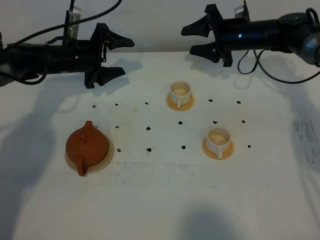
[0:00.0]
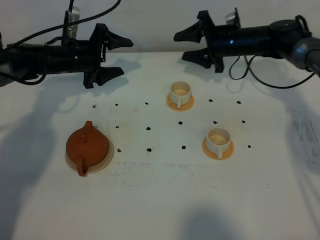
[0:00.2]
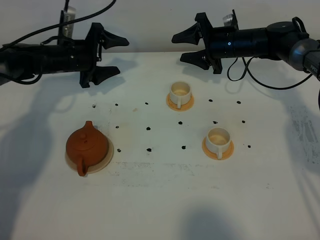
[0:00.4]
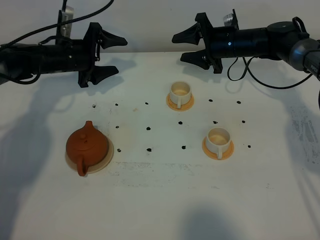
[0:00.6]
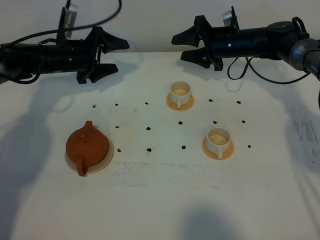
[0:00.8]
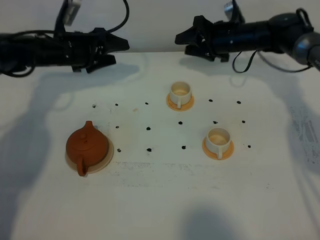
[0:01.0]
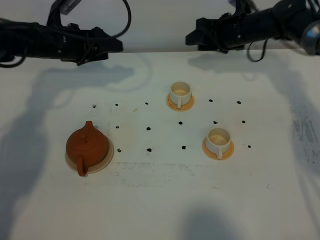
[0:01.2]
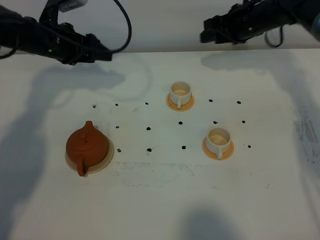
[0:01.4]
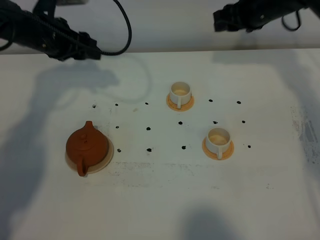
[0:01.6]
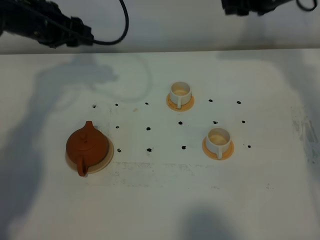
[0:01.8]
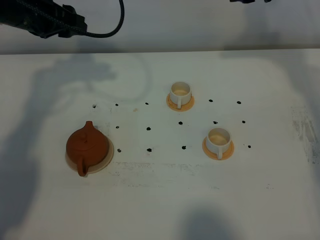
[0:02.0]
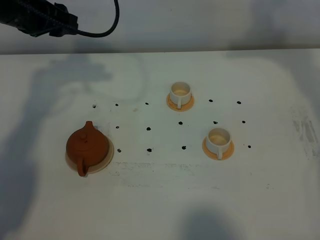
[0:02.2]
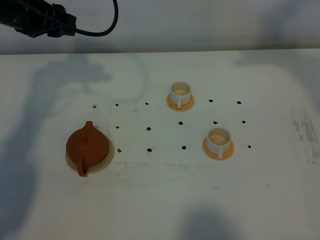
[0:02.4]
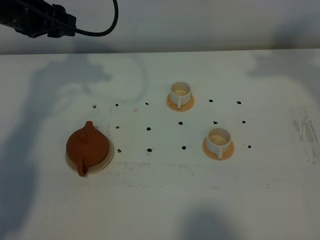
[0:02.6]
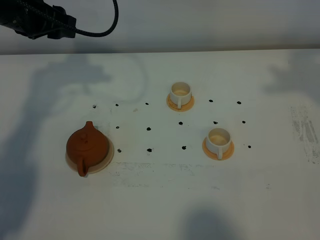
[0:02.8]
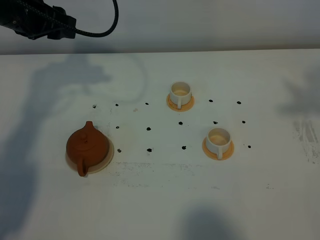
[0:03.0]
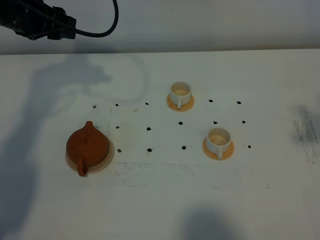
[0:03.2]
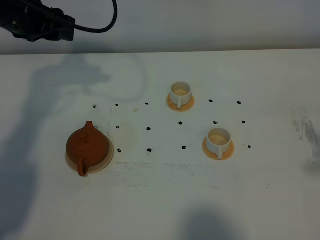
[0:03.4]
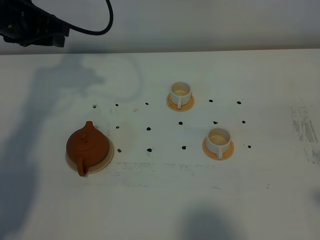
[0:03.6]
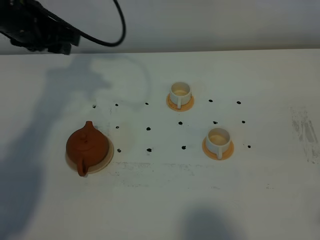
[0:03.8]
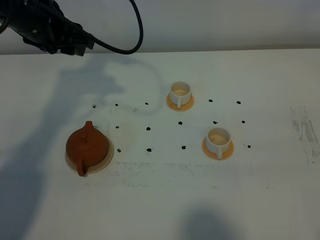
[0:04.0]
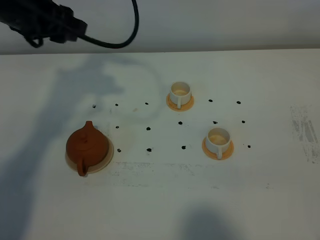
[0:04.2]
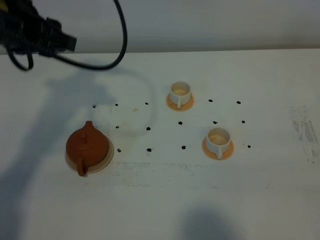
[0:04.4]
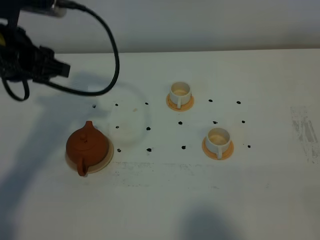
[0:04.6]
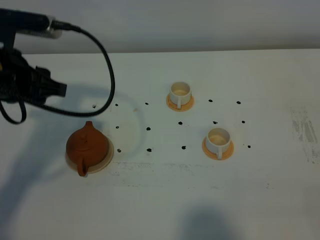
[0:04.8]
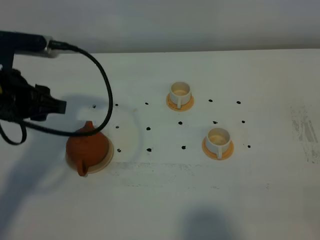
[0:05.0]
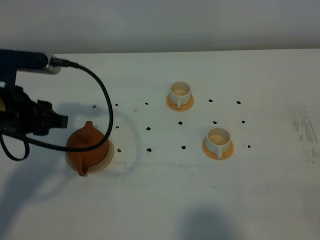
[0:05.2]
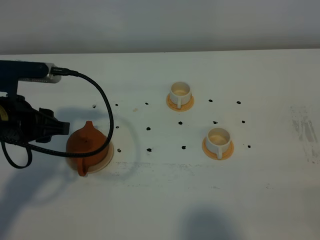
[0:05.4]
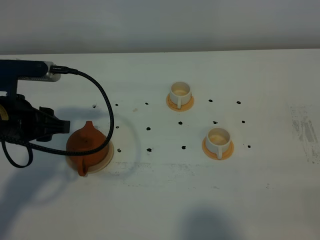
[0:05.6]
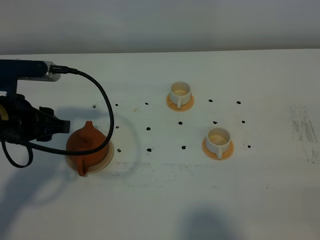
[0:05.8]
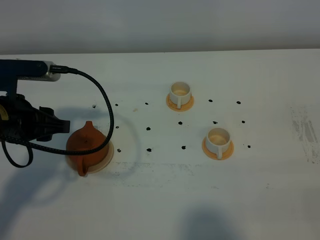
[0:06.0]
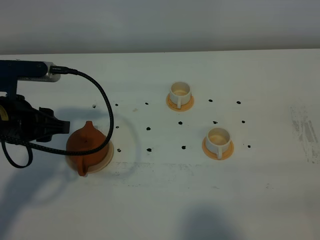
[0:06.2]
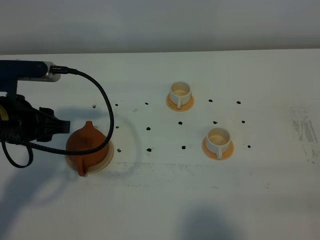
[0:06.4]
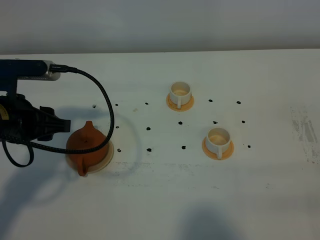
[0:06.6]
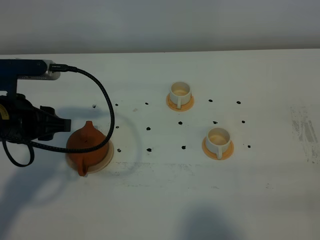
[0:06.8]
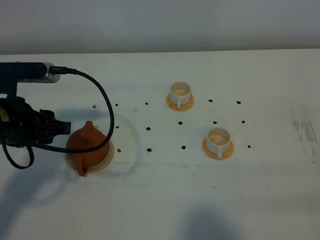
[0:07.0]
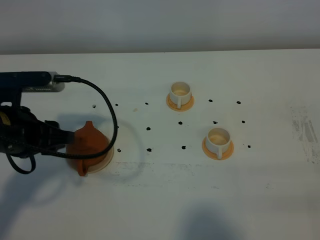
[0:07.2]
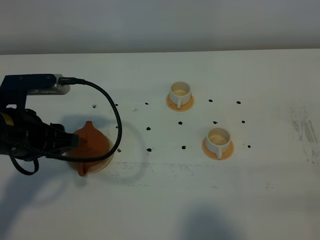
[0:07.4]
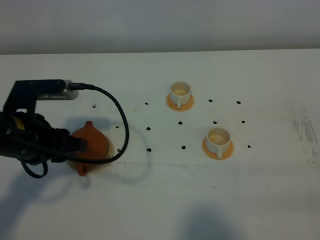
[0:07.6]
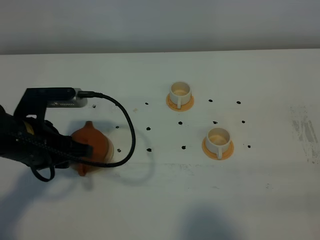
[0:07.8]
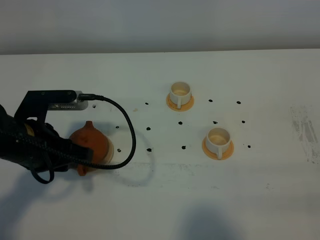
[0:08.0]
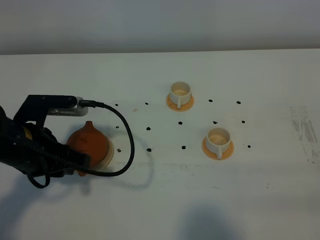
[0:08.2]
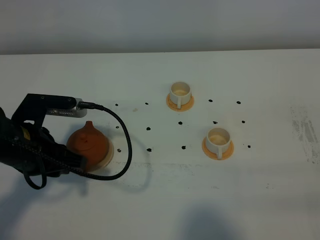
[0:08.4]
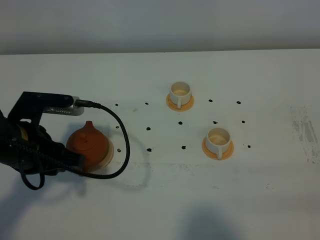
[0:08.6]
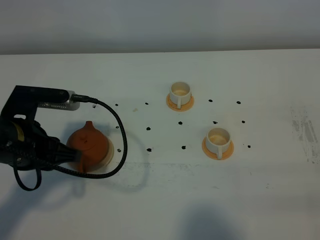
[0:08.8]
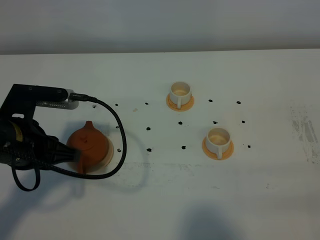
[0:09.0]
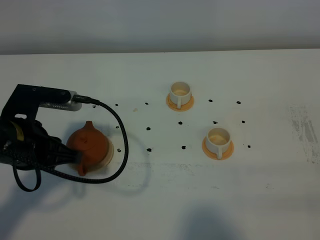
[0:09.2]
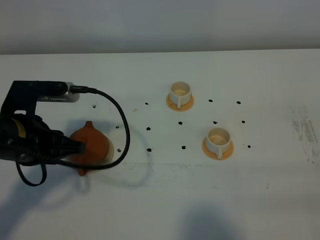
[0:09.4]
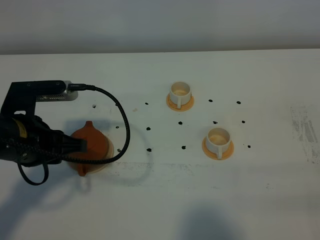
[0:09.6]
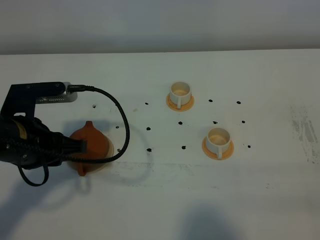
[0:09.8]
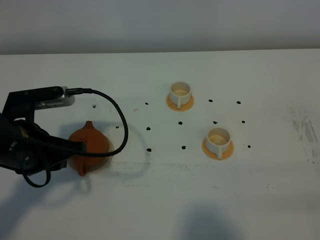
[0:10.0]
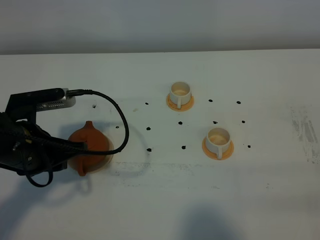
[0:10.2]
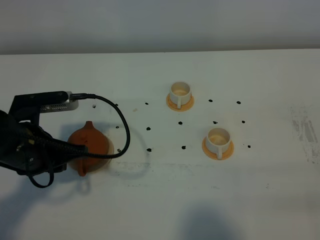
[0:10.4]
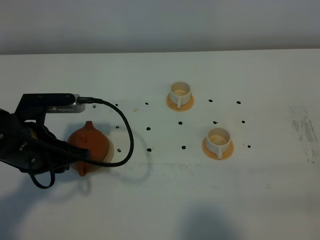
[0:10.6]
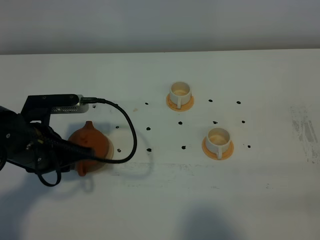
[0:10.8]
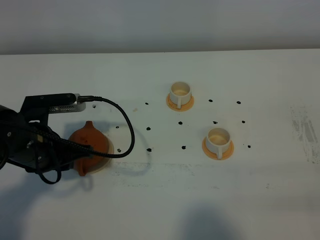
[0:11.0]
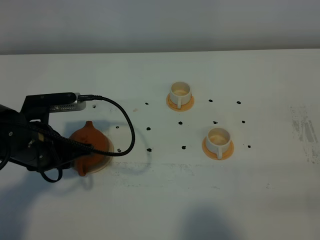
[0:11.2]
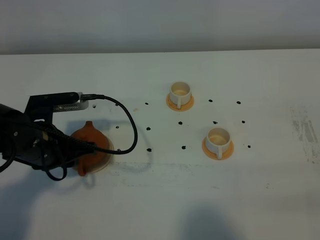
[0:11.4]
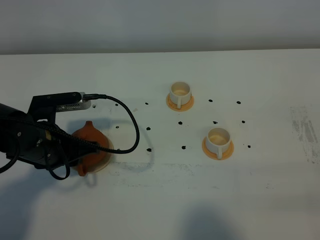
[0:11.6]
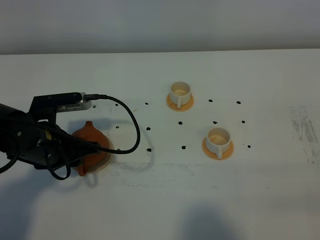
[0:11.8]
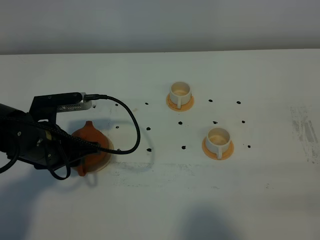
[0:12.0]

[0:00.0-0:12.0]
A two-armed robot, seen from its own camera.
Task of the whole recording: grasp the brown teapot and pour the tea into the two white teacups one by one, put the brown teapot back in its original place.
0:00.0 to 0:01.6: The two grippers go some 10 cm upward.
0:01.6 to 0:03.0: The right gripper travels backward and upward by approximately 40 cm. Meanwhile the left gripper shifts approximately 5 cm upward.
0:03.0 to 0:04.4: The left gripper heads backward, covering about 10 cm. The right gripper is displaced backward and downward by roughly 25 cm.
0:04.4 to 0:06.0: The right gripper shifts approximately 10 cm downward, and closes up. The left gripper heads downward and backward, covering about 15 cm.
0:06.0 to 0:07.6: There are only small adjustments of the grippers.
0:07.6 to 0:12.0: The grippers stay close to where they were, moving slightly.

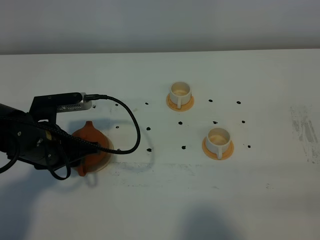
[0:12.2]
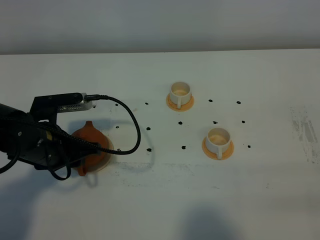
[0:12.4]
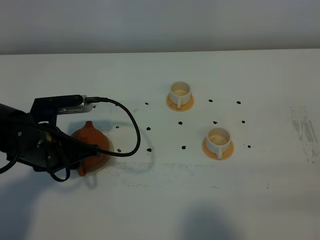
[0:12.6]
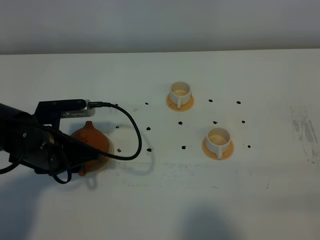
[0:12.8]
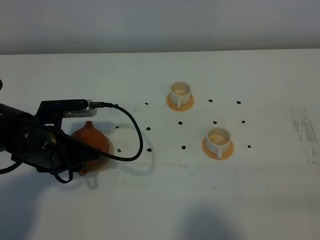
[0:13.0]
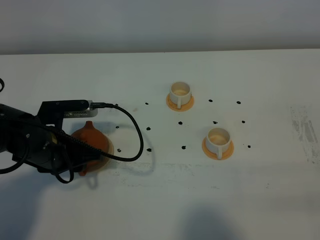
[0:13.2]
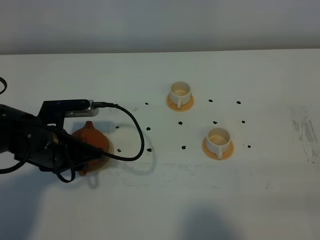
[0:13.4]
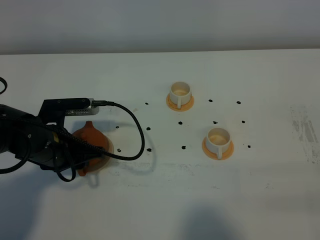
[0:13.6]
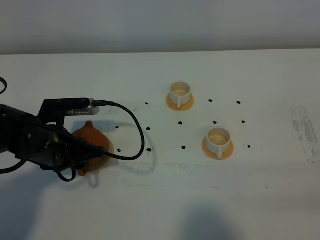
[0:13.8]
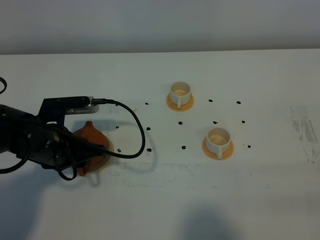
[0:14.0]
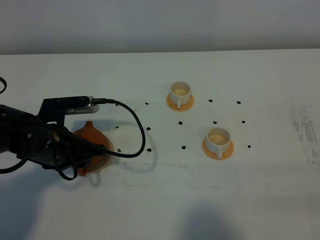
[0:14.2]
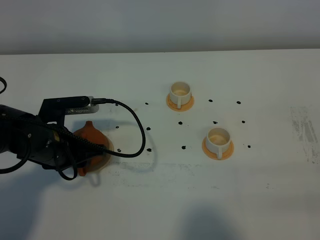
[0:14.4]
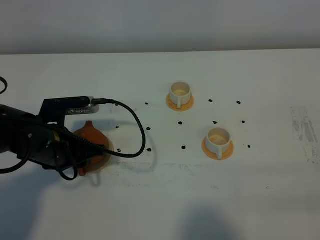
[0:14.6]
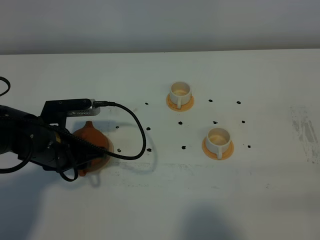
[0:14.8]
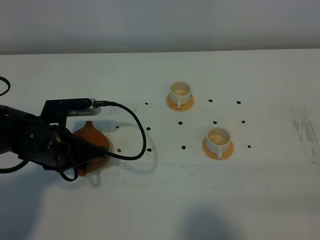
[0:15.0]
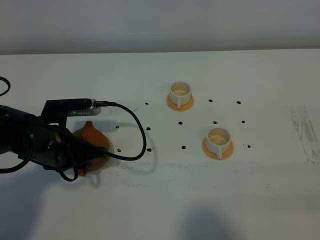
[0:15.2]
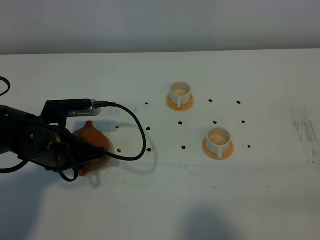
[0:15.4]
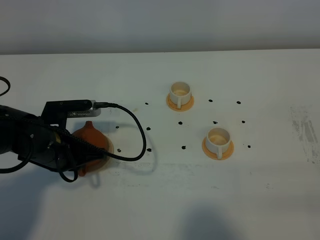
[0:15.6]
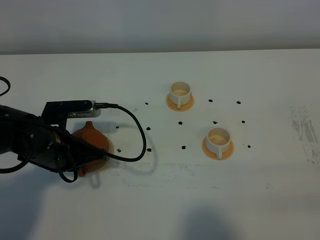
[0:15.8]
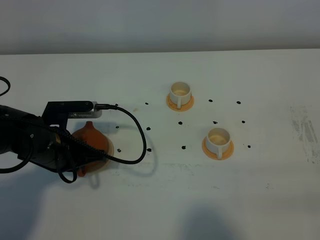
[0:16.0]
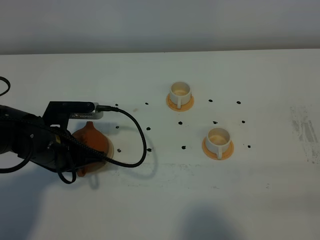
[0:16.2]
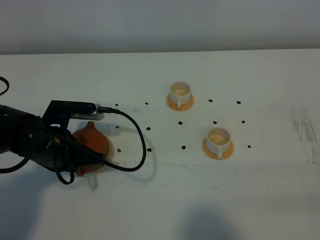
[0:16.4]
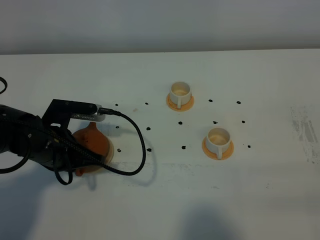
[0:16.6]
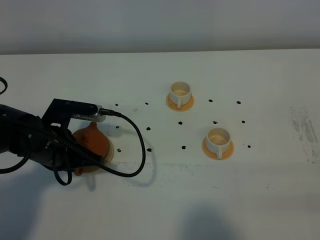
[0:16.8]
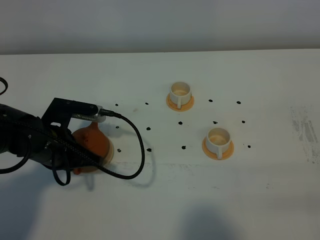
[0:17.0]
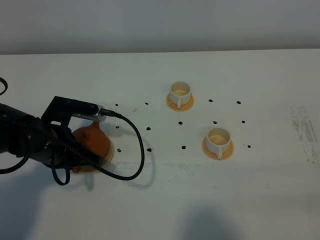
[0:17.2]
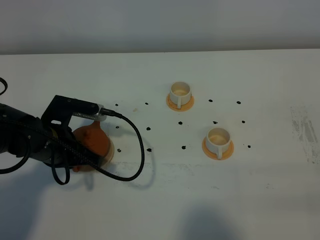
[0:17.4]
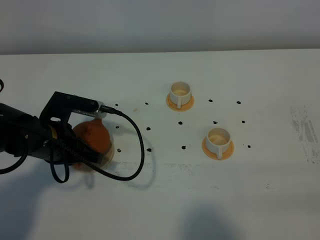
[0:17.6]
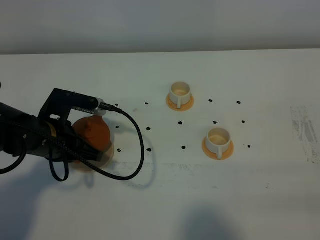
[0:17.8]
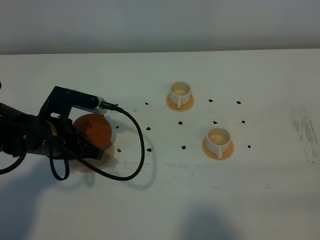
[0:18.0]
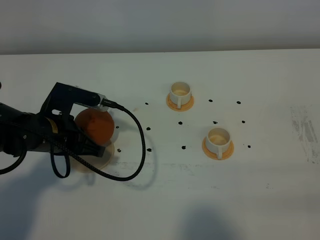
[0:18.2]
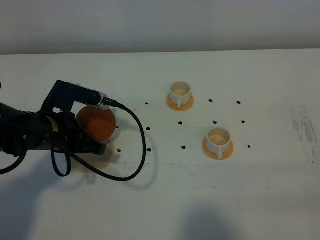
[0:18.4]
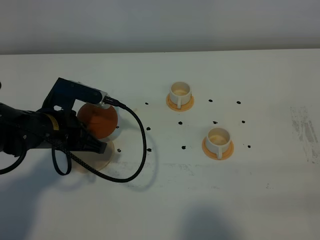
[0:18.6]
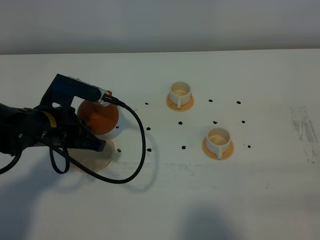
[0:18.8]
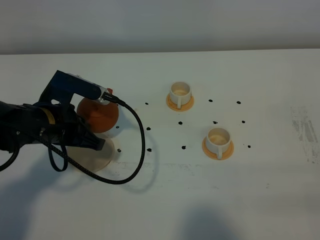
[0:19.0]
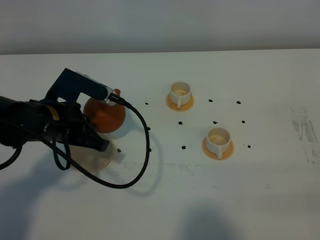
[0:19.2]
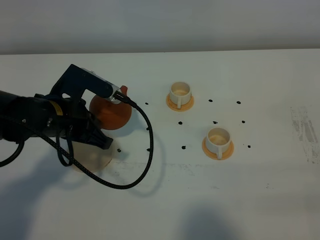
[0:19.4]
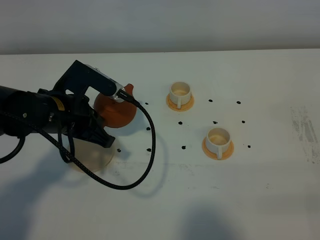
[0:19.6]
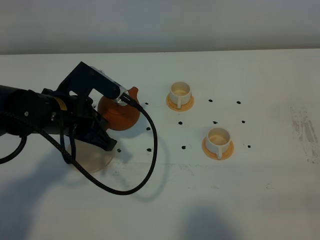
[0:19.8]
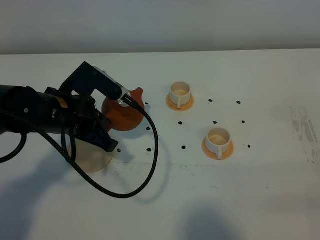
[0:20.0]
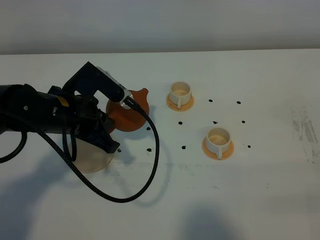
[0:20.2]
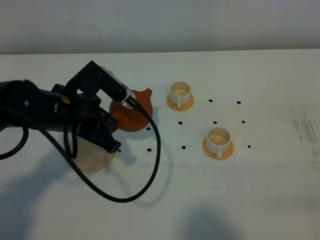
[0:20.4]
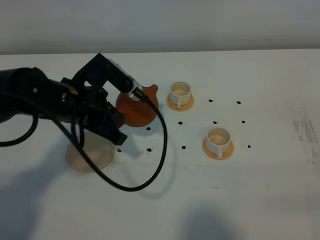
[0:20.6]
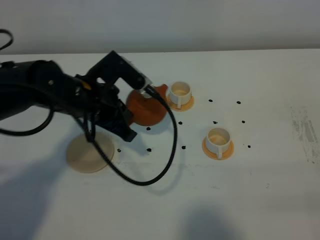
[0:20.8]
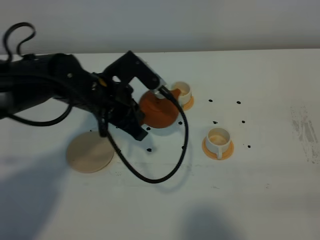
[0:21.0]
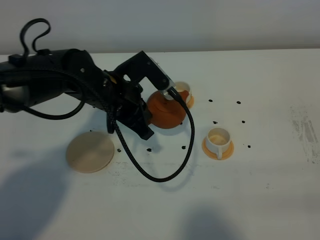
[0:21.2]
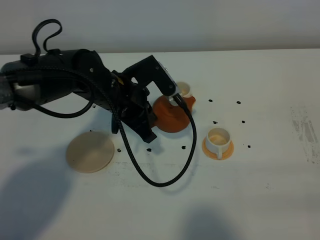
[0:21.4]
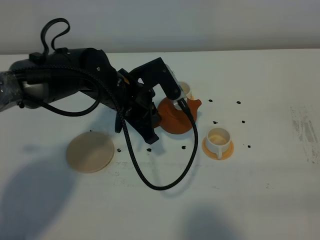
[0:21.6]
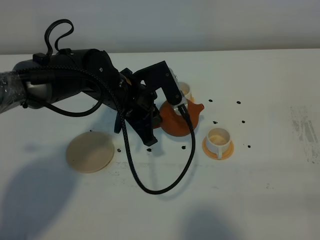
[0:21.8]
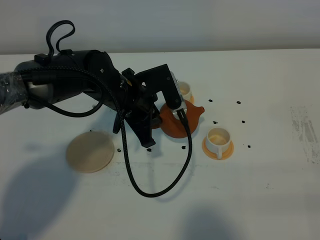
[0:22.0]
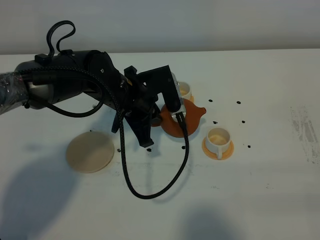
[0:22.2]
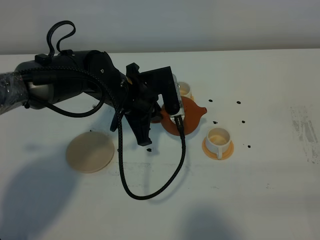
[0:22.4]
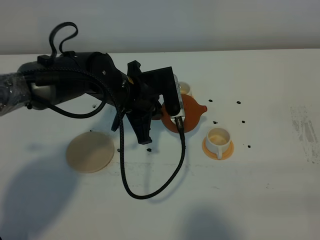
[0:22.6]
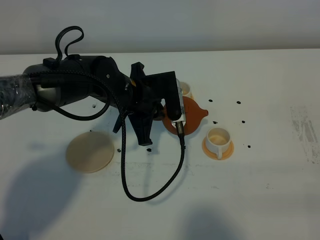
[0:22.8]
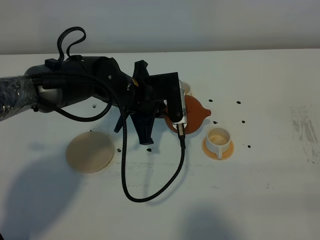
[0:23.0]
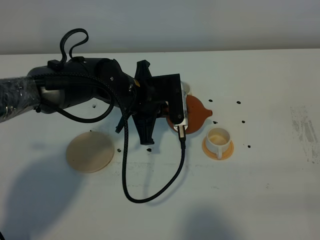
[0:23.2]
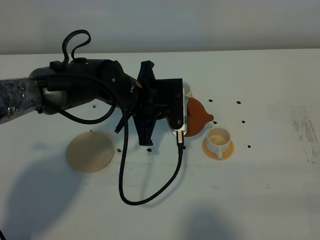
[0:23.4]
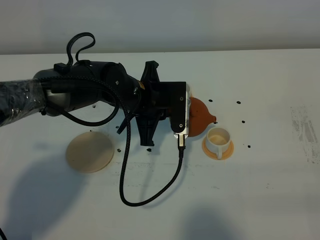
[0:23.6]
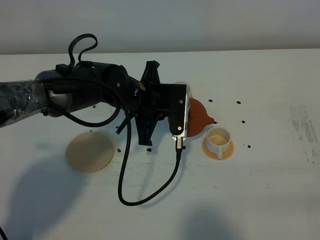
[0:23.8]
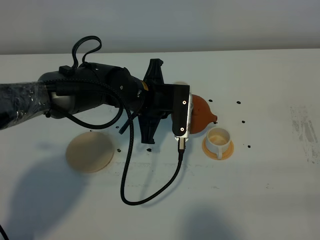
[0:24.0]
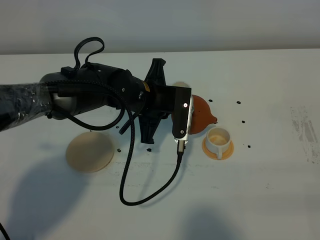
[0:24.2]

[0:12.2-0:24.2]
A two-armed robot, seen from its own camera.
Task of the whole recording: grasp the brown teapot and pour the tea into the two white teacups one by one, put the brown teapot back in its original place.
Step, 0:12.2 to 0:17.6: Pick up the teapot with the left gripper.
0:12.2 to 0:13.8: The grippers make only small movements.
0:13.8 to 0:15.2: The two grippers keep their place.
0:15.2 to 0:16.6: The left gripper closes its fingers.
0:16.6 to 0:18.2: The grippers stay close to where they were, moving slightly.
0:18.2 to 0:19.8: The left gripper ends up roughly 5 cm from where it was.
0:19.8 to 0:21.2: The left gripper travels to the right and forward by about 10 cm.
